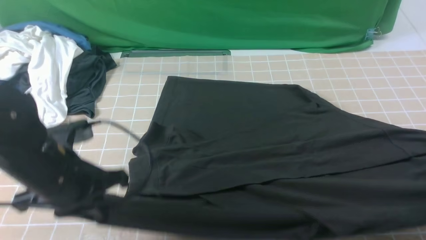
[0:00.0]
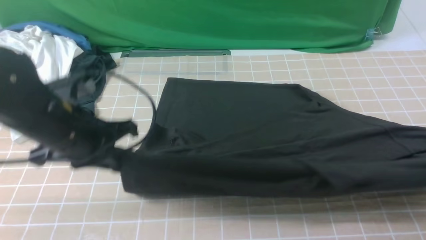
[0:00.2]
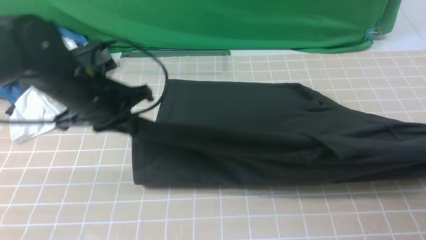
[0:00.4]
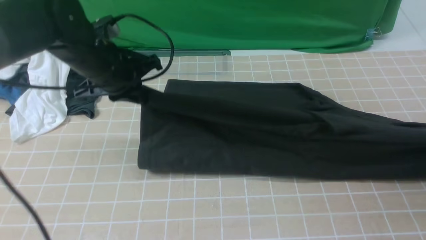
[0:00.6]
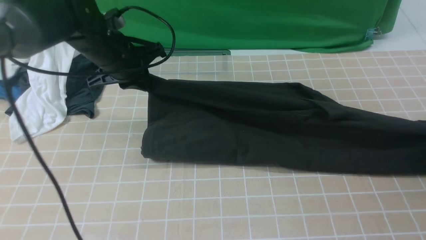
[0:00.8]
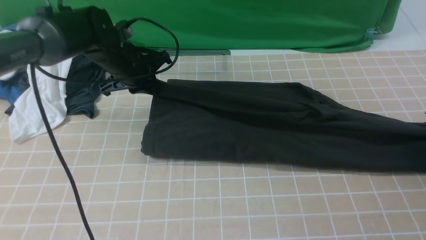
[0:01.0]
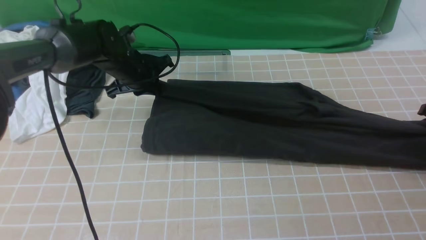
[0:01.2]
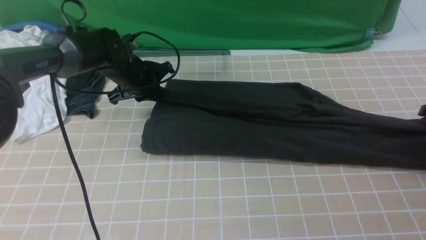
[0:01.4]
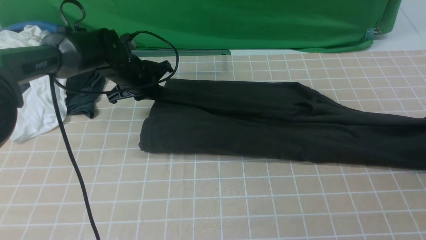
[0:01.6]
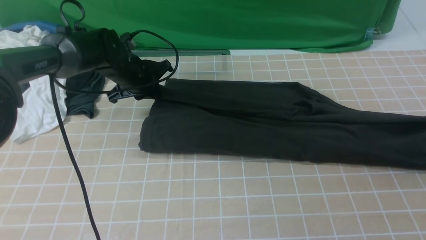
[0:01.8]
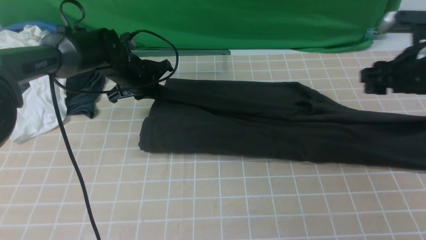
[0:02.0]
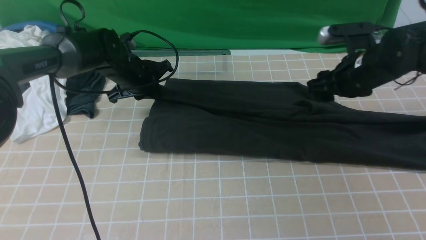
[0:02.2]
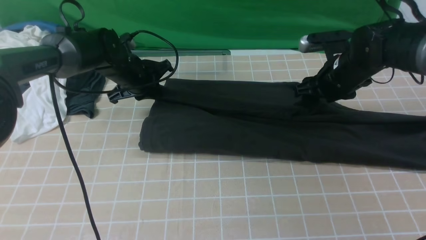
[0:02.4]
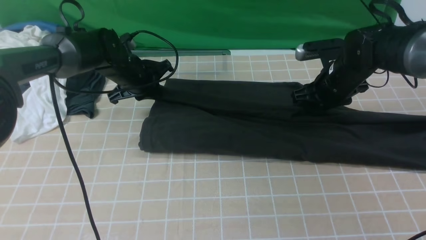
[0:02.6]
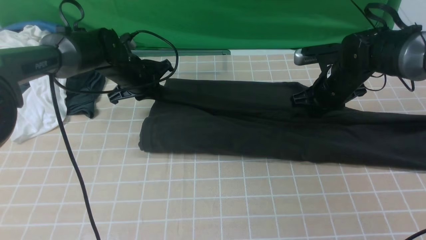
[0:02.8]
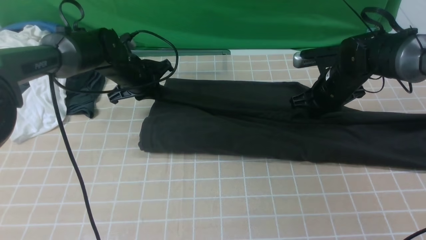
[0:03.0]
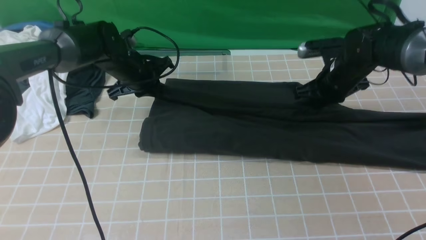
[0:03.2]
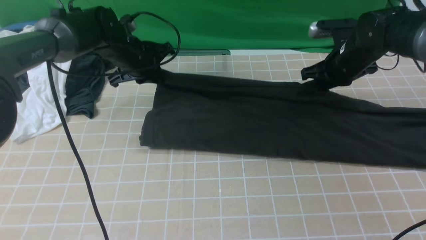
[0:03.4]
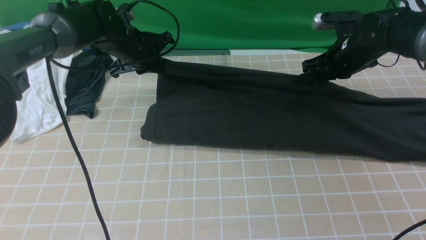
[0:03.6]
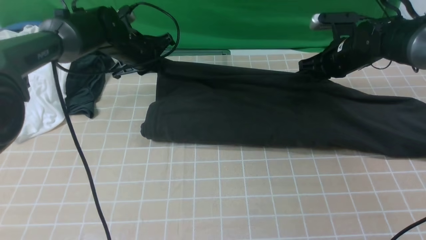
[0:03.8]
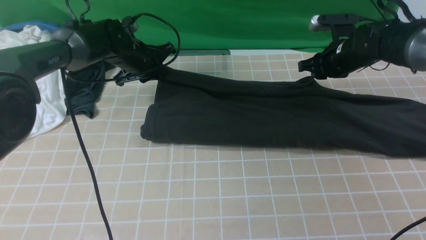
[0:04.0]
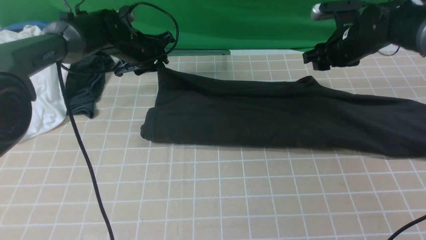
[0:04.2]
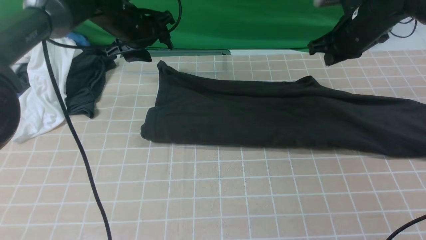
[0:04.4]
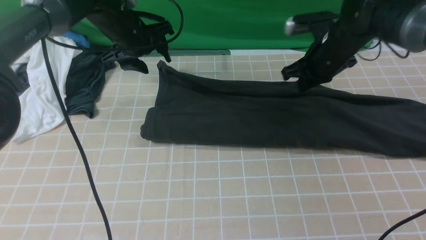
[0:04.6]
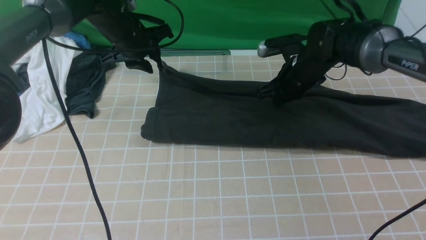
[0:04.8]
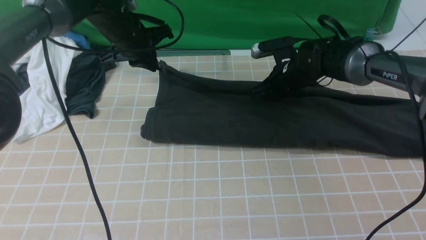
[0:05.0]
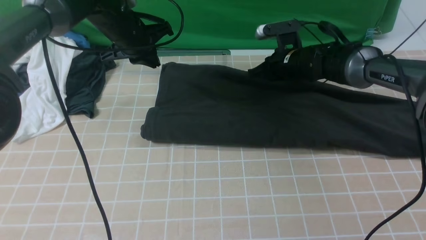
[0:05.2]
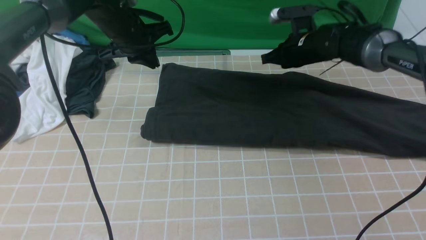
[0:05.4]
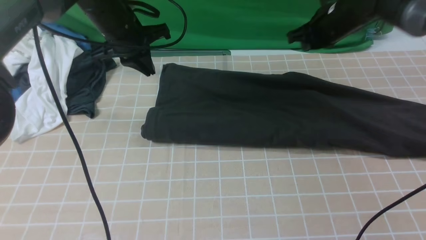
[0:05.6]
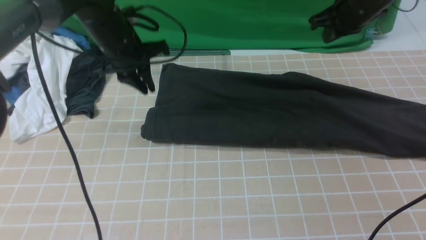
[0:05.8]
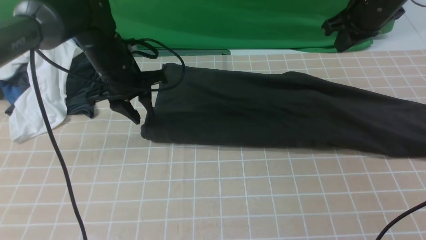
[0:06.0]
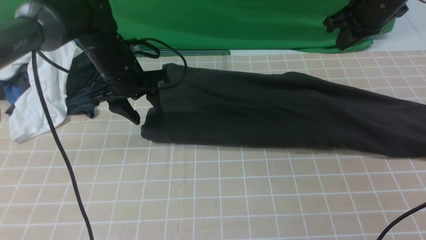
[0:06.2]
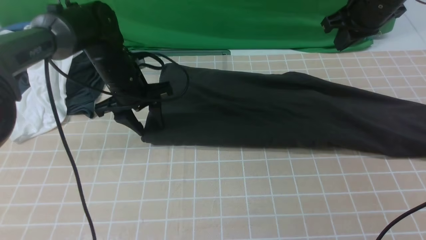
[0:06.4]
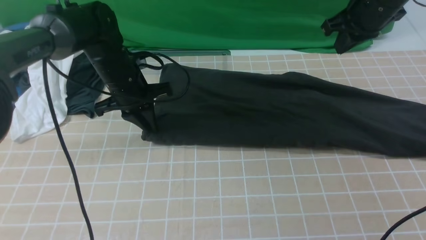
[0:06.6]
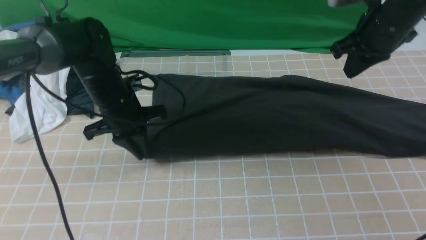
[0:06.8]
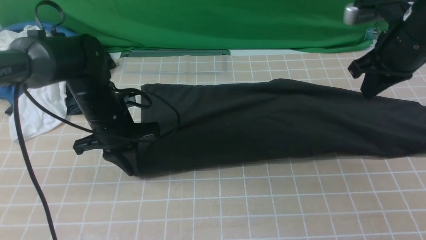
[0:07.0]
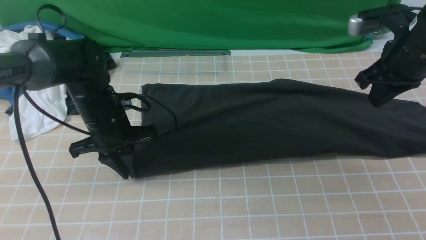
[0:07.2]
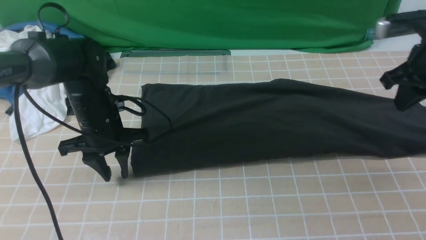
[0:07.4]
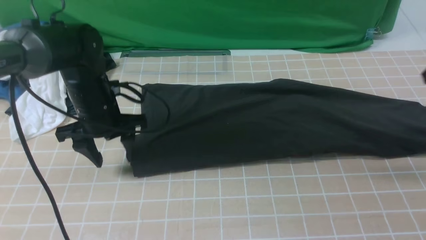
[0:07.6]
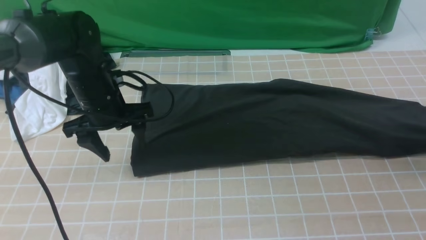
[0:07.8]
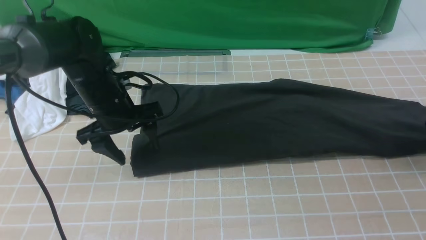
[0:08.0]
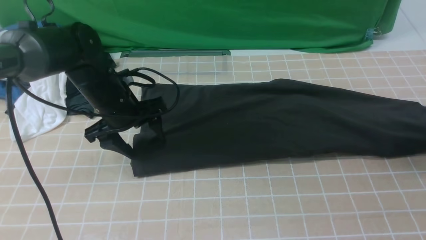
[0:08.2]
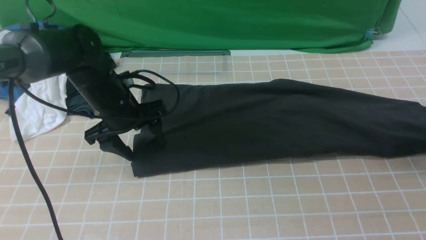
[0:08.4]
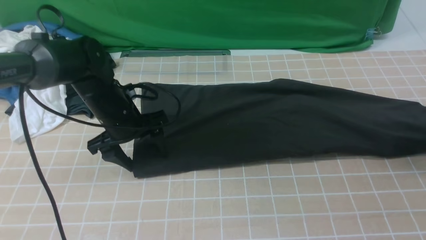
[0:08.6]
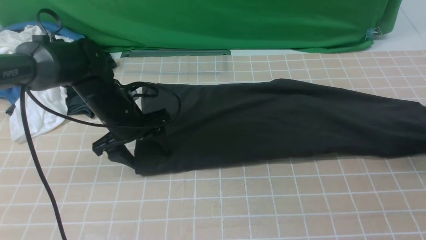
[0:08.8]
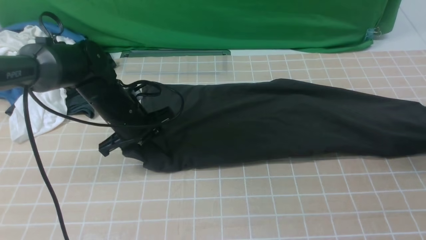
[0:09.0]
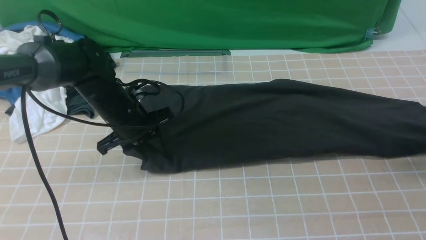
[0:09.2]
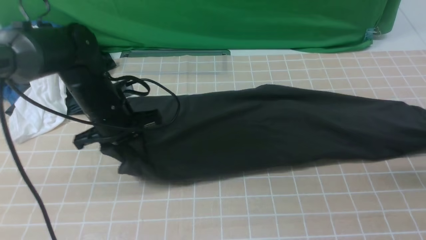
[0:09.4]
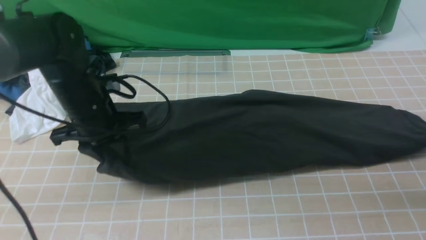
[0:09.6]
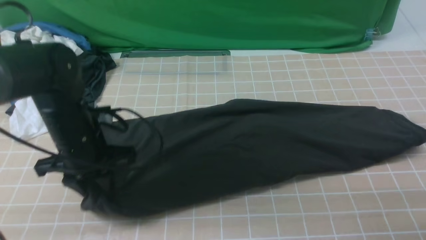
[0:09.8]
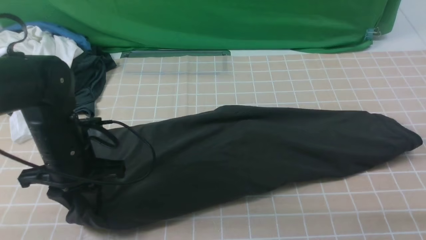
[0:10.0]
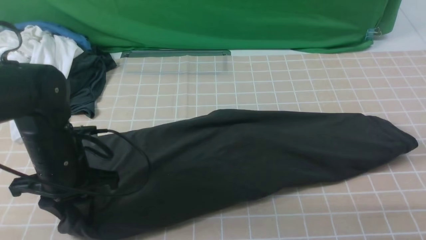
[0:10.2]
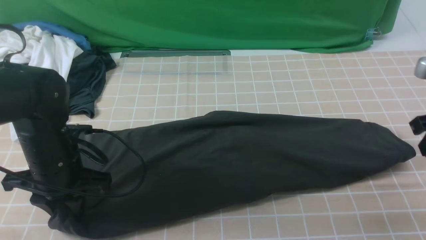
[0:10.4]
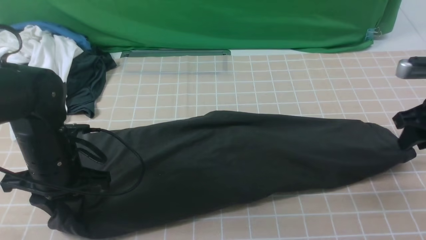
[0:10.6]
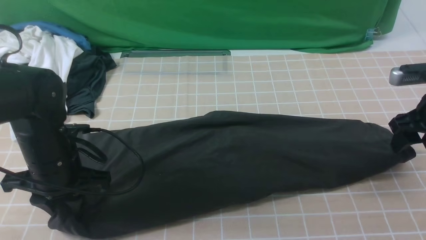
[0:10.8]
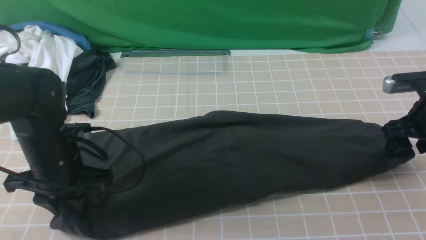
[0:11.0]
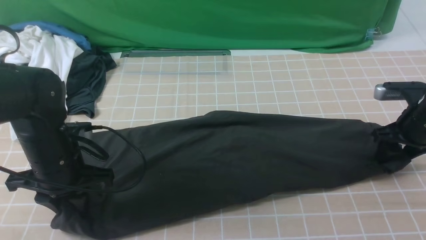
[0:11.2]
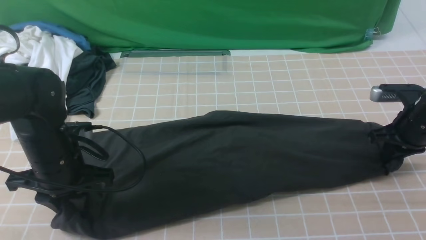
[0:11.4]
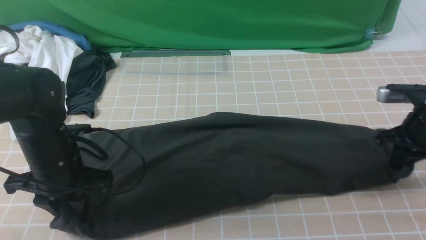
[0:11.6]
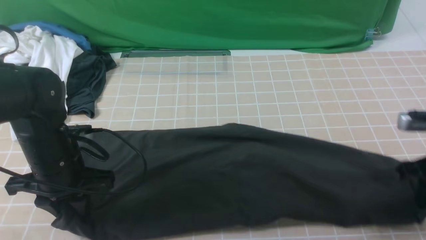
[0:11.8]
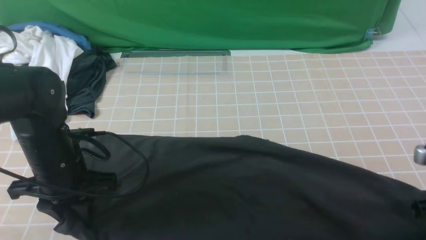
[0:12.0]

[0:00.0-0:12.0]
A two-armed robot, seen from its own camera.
Step, 0:00.0 to 0:04.0: use both arms to drag the lower edge of the fabric forward and fold it over the upper edge.
0:00.0 to 0:01.6: The right gripper is displaced forward by approximately 10 cm, and opens its fingers. The left gripper is displaced forward by about 25 cm.
0:01.6 to 0:03.0: The right gripper heads to the left and forward, covering approximately 20 cm, and closes its fingers.
0:03.0 to 0:04.4: The two grippers go about 5 cm upward. The left gripper opens.
0:04.4 to 0:06.0: The right gripper goes some 10 cm upward. Meanwhile the left gripper heads backward, covering about 5 cm, and closes, then reopens.
0:06.0 to 0:07.6: The left gripper travels backward by approximately 5 cm, and opens up, while the right gripper travels to the right and backward by roughly 15 cm.
0:07.6 to 0:09.0: The right gripper ends up approximately 5 cm from where it was, and opens.
0:09.0 to 0:10.4: The right gripper heads to the left and backward, covering about 15 cm, and closes up. Meanwhile the left gripper shifts roughly 10 cm backward and to the left.
0:10.4 to 0:12.0: The right gripper moves downward and backward, some 10 cm, and opens and closes again.

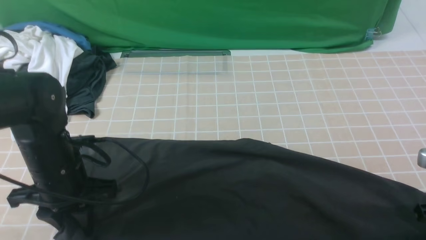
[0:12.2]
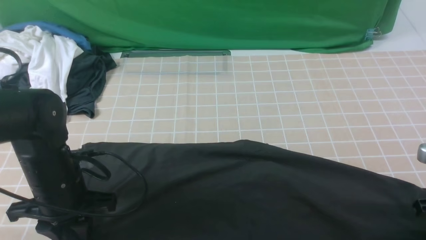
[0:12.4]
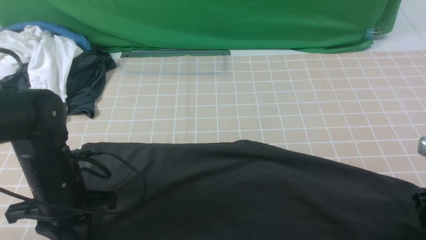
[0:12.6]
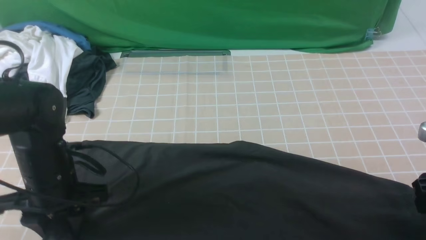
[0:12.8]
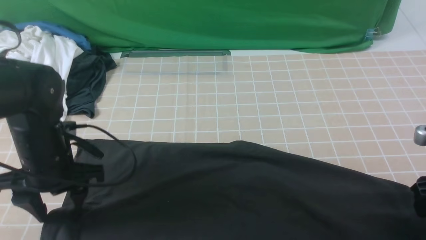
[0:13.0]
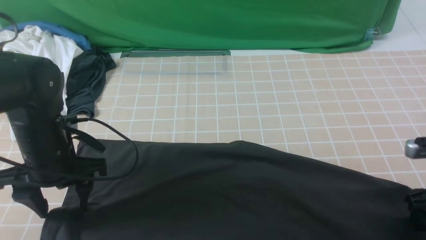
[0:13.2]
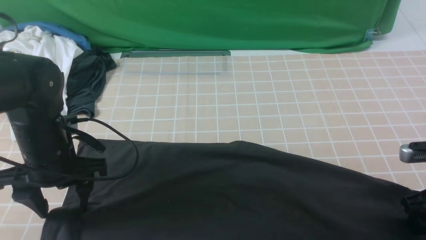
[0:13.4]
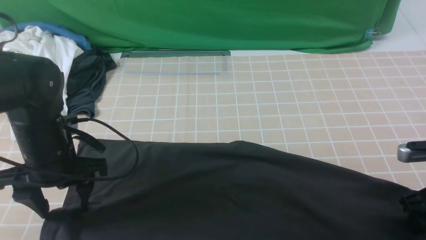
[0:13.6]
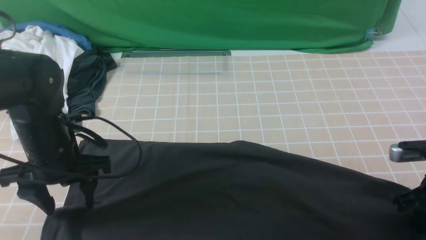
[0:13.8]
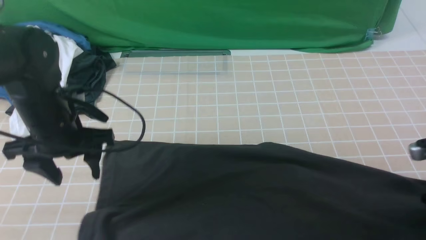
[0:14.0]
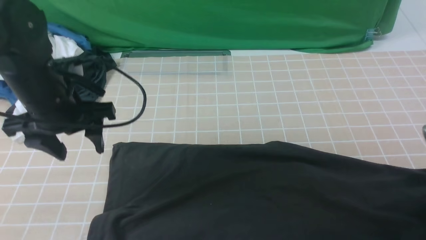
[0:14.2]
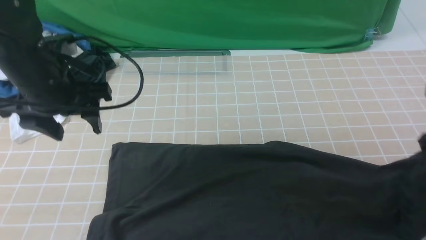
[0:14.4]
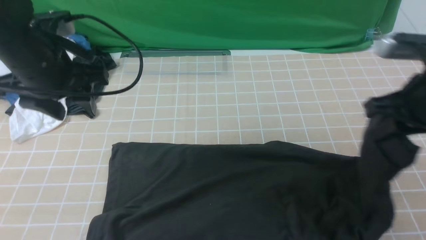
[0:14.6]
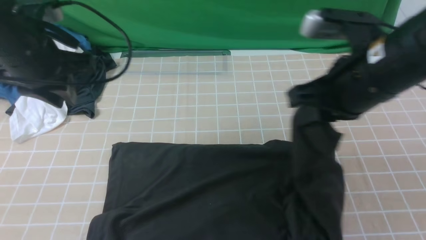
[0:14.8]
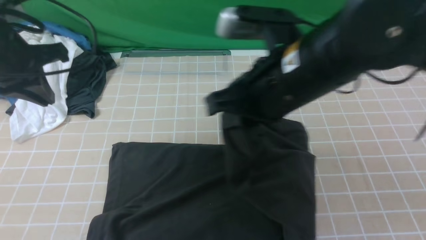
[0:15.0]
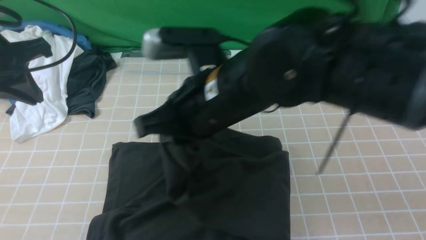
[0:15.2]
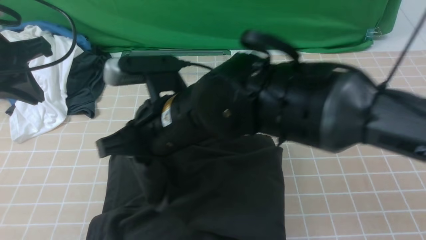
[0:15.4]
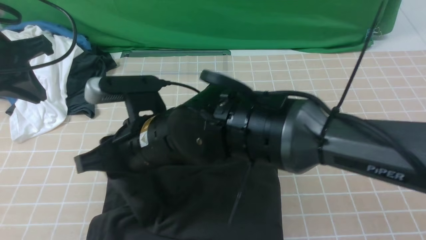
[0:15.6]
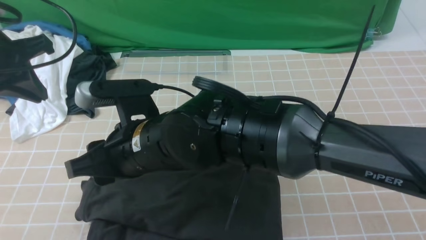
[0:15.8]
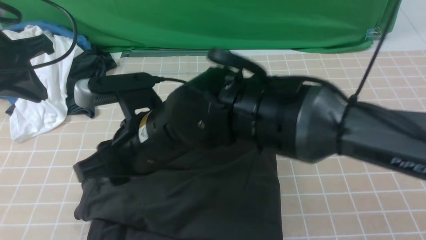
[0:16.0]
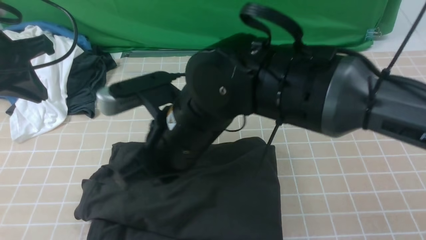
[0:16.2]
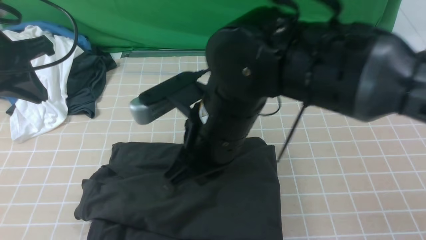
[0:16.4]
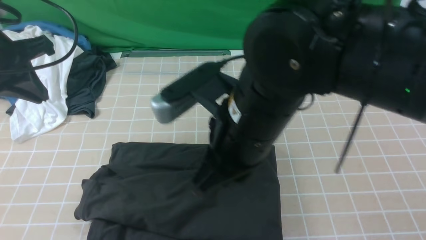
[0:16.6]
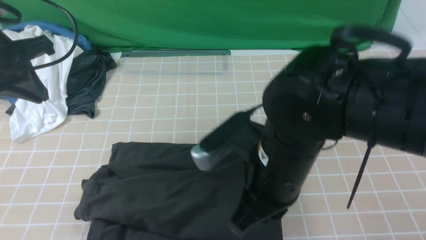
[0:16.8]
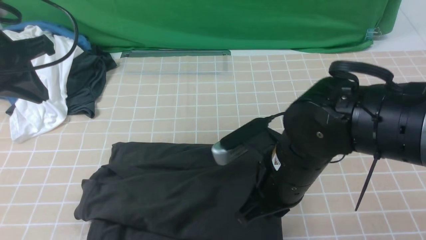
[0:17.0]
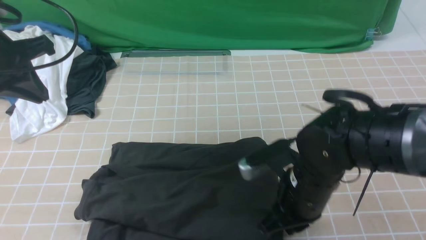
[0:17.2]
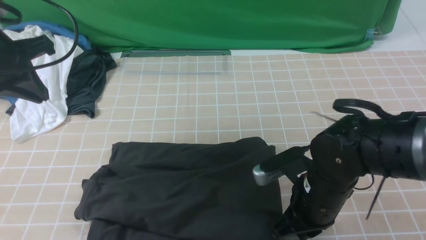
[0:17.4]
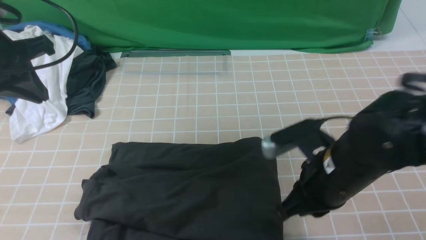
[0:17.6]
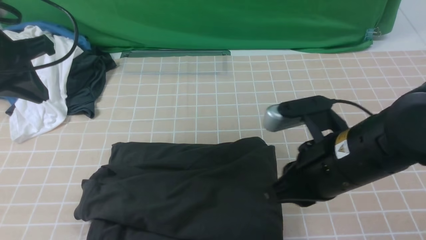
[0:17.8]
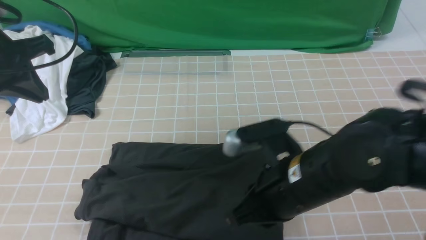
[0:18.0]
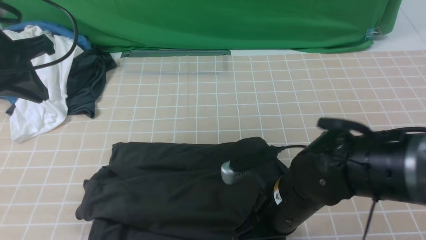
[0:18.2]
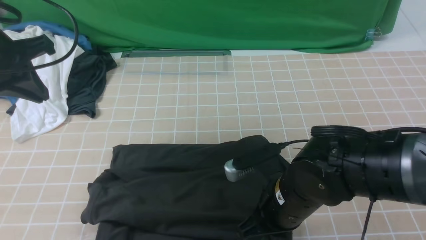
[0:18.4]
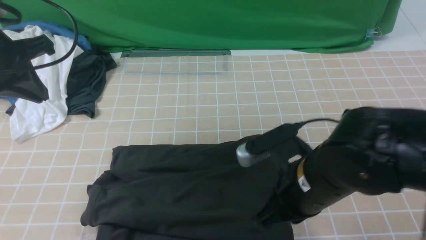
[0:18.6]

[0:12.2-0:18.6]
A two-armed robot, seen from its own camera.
Step, 0:14.0 to 0:15.6: use the right arm to drag the right edge of the fabric to the left and folds it over the left edge.
0:12.2 to 0:13.8: The left gripper opens. The right gripper opens, then closes once more.
0:13.8 to 0:15.4: The right gripper moves to the left, roughly 40 cm. The left gripper moves upward and to the left, some 15 cm, and closes its fingers.
0:15.4 to 0:17.0: The right gripper heads to the right and downward, covering about 15 cm.
